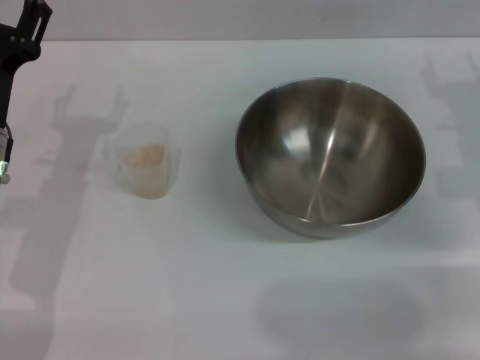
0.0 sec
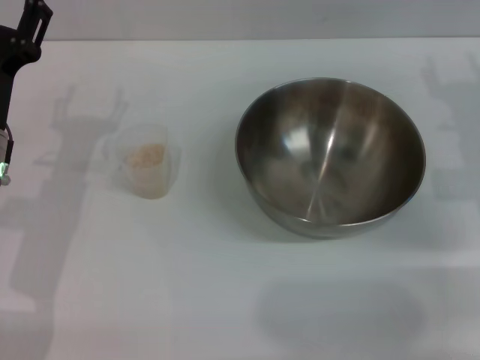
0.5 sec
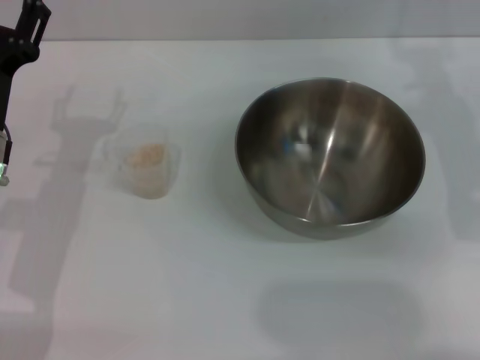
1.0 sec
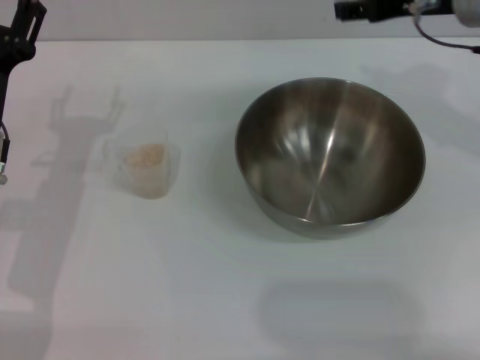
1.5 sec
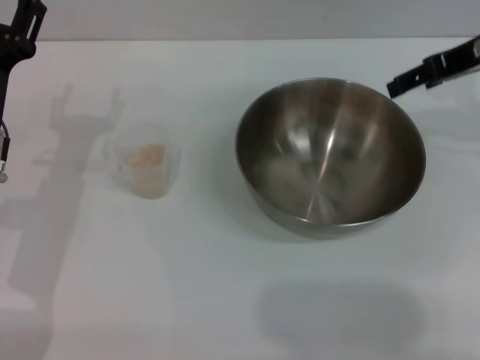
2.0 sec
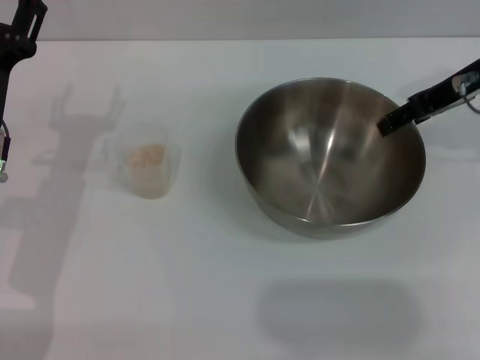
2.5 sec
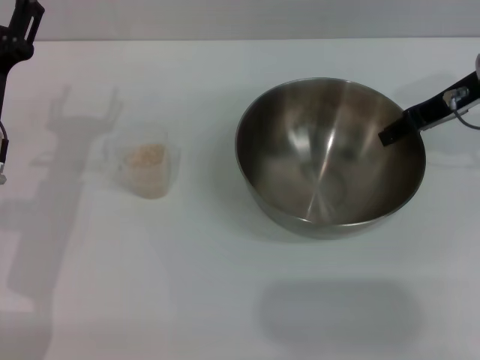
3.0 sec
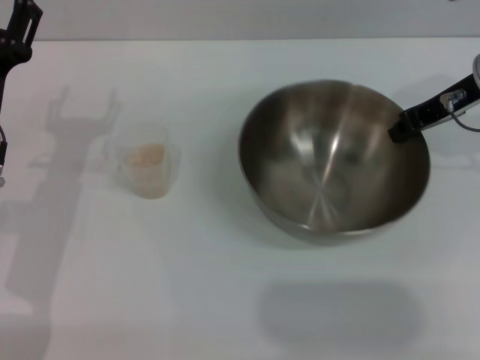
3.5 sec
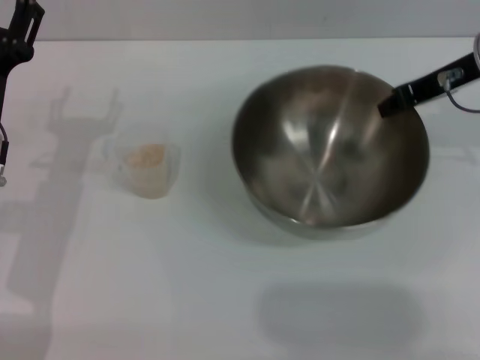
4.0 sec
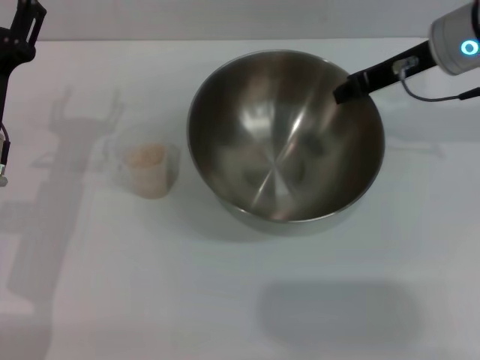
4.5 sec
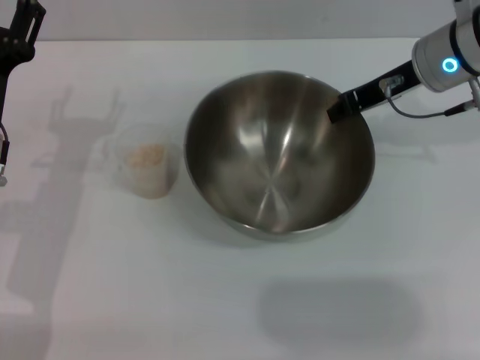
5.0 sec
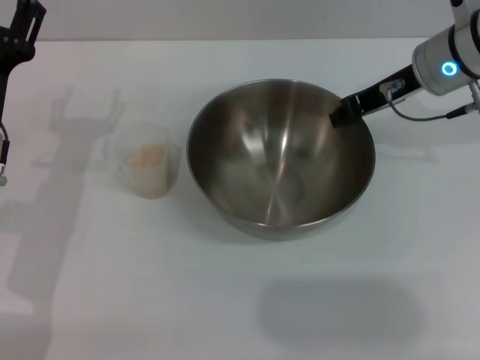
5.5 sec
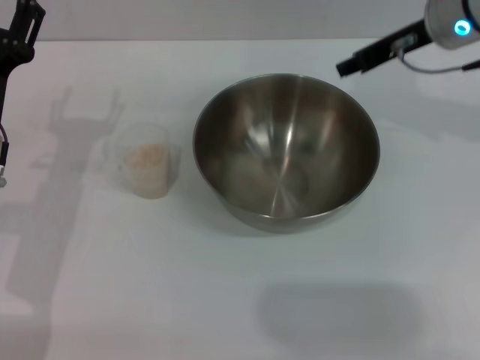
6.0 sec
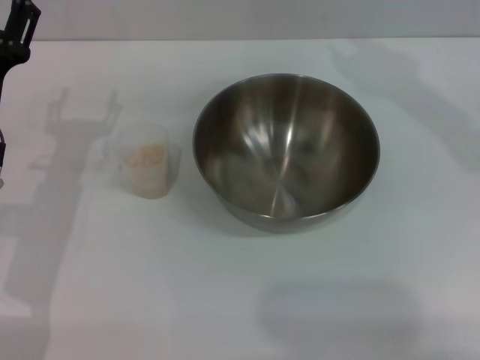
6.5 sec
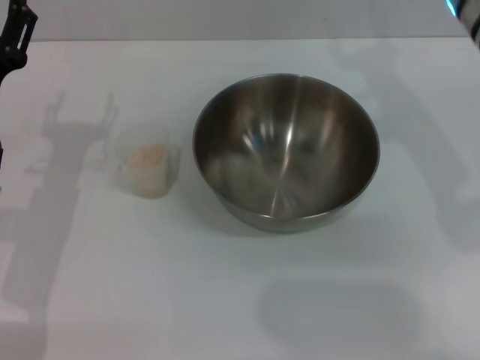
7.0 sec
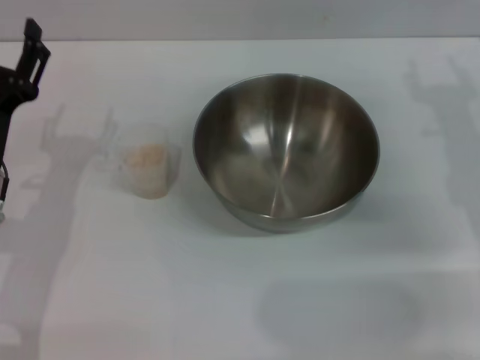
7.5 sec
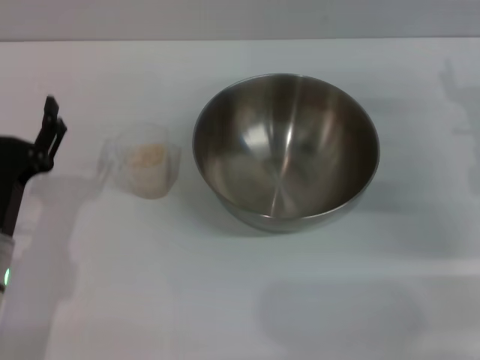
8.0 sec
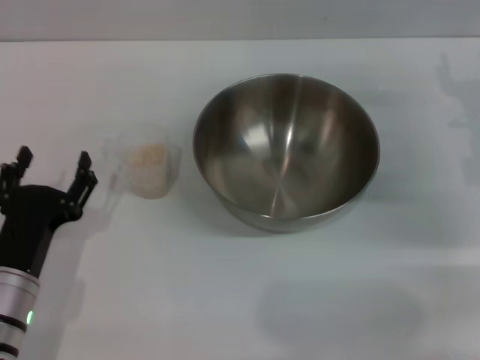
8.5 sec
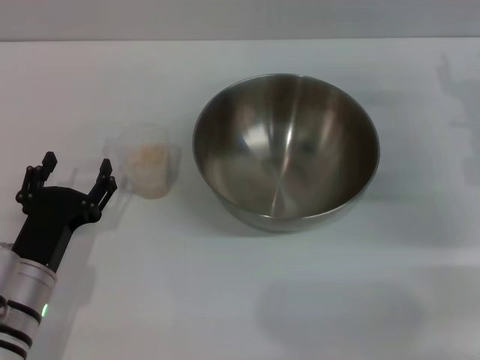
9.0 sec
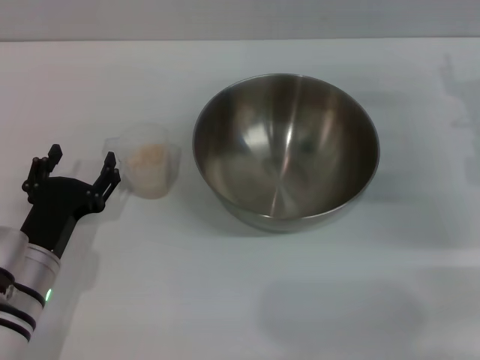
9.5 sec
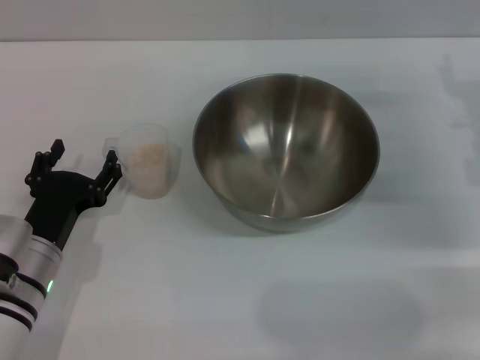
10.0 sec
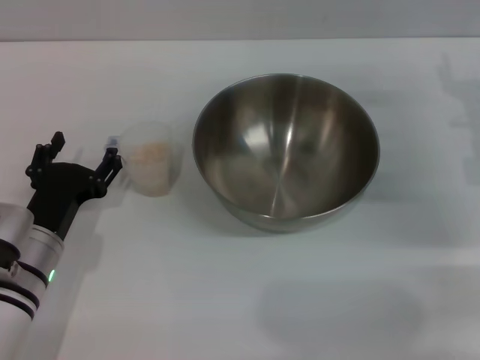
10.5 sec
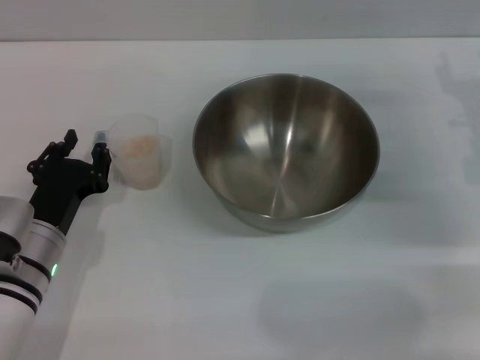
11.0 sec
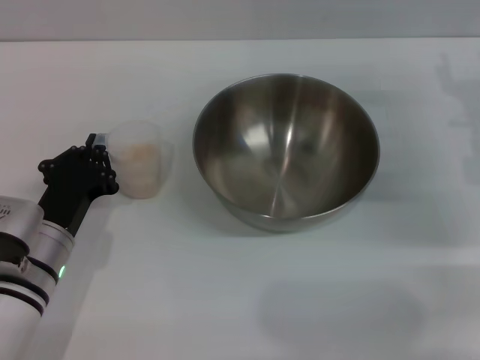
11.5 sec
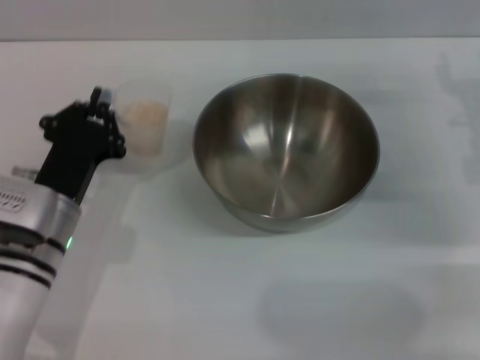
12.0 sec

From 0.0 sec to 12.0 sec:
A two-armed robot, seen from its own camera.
Task of the whole recording: Place the bowl in the middle of the table with one hand and pour the rice from the grain cup into it with the other hand.
Step, from 0.0 sec to 3.5 sec: Pick up the bowl with the right gripper.
Step, from 4.0 sec to 6.0 sec: Place the bowl in the center of view with the right gripper.
Step, from 6.5 sec to 11.5 sec: Pick up the cup with rice in it with the left gripper.
From 0.0 sec to 2.0 sec: The right gripper goes approximately 15 cm upward and forward.
From 2.0 sec to 4.0 sec: The right gripper closes up.
From 4.0 sec to 6.0 sec: The right gripper ends up roughly 5 cm from where it was.
From 6.0 sec to 8.0 sec: The left gripper shifts roughly 10 cm backward and downward, while the right gripper goes some 15 cm downward, backward and to the right, and opens its fingers.
From 8.0 sec to 10.0 sec: The grippers make only small movements.
From 10.0 sec to 12.0 sec: The left gripper moves some 5 cm, and closes.

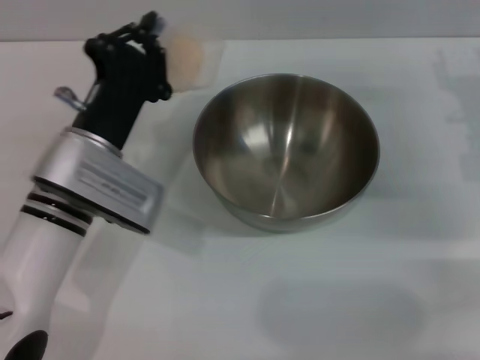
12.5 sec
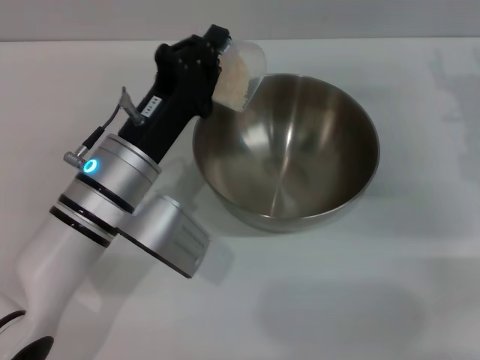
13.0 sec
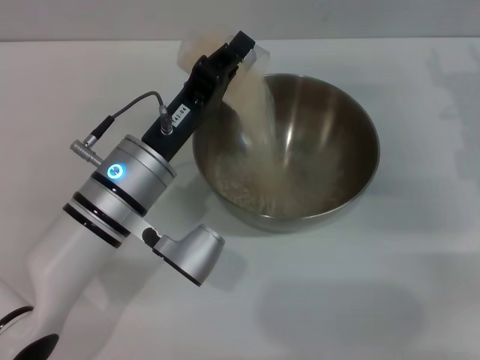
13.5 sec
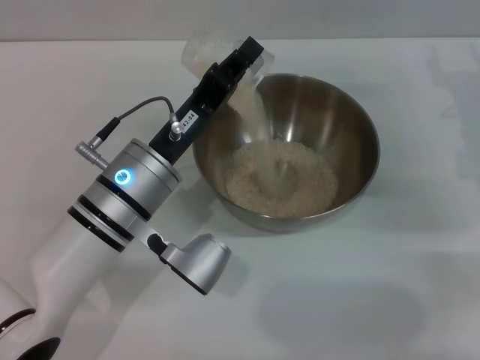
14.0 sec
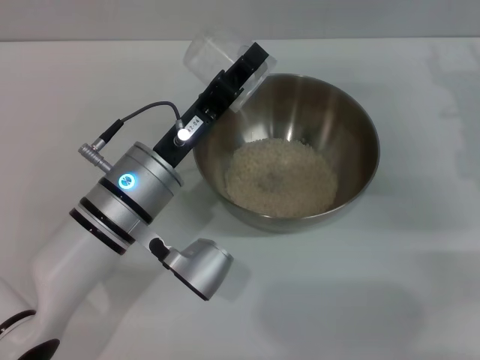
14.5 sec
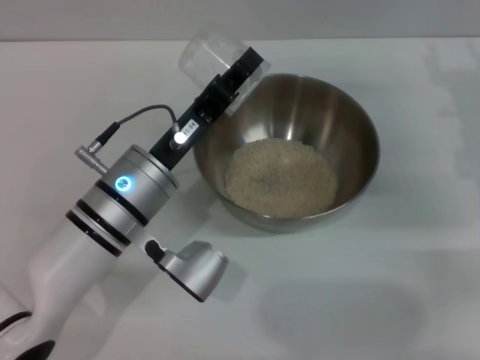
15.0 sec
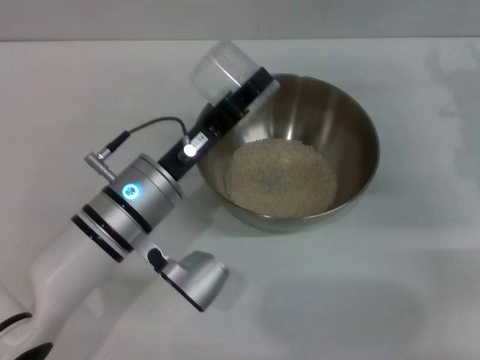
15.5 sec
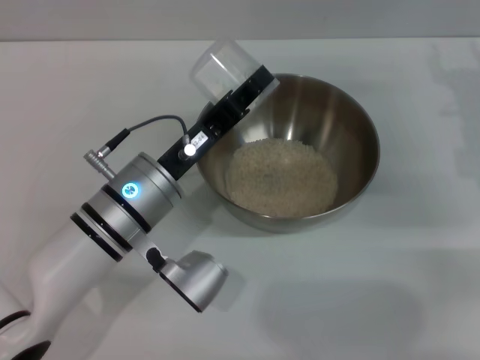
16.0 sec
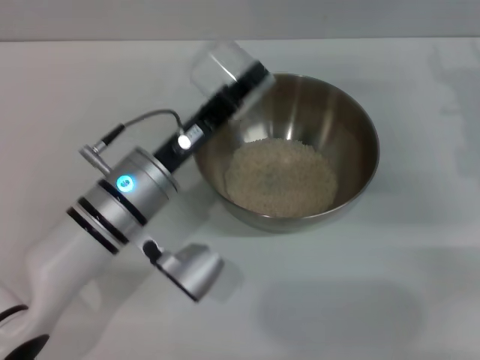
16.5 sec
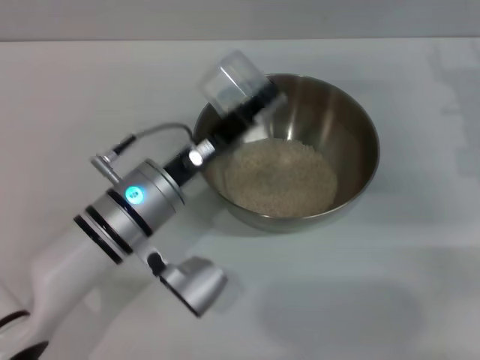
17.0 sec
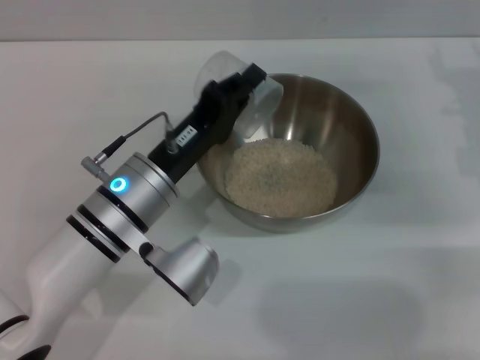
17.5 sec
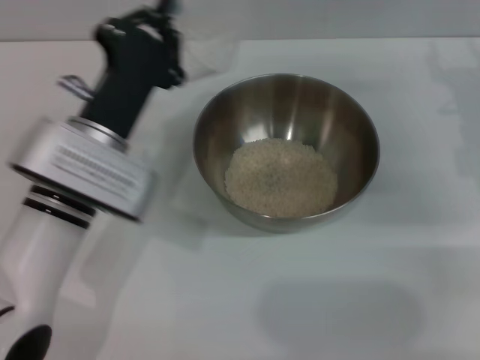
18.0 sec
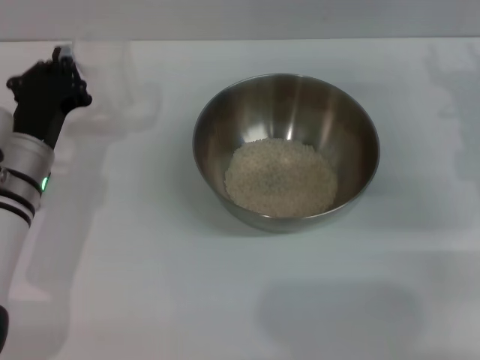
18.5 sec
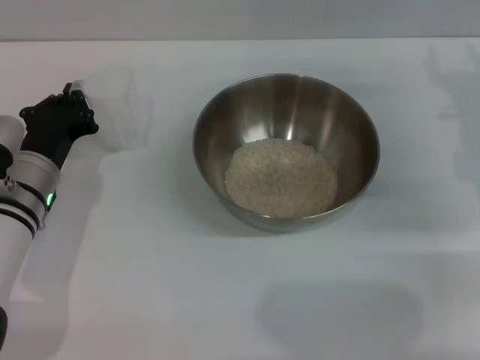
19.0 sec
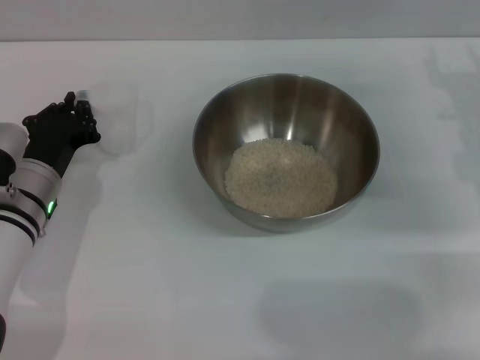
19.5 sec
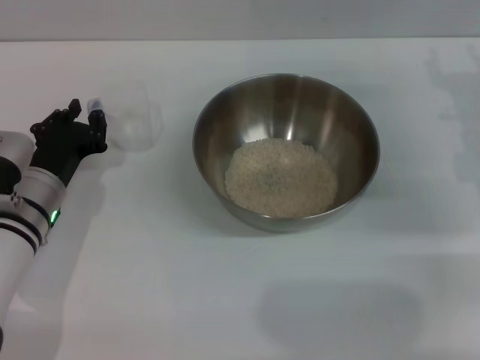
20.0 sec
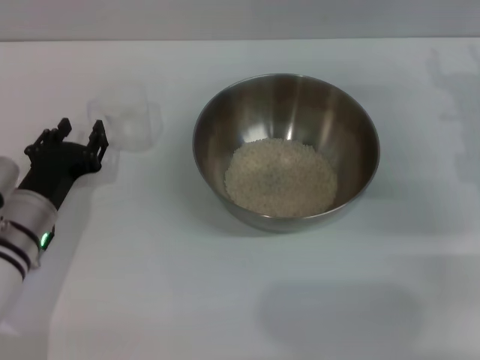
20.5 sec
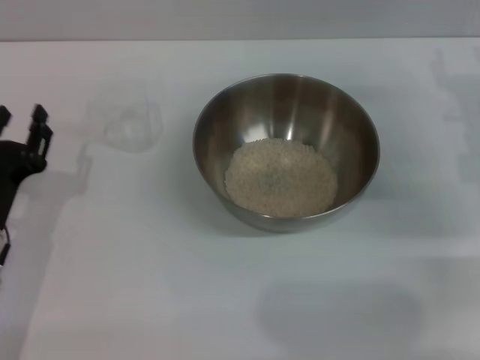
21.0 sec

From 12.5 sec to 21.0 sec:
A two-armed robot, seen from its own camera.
Task of the whole recording: Place the bowl in the middle of the table with one hand and pour the rice from the grain cup into it with the other hand.
Step, from 12.5 sec to 15.0 sec: Pour the rice from the cup into the bowl with the left gripper.
Step, from 15.5 sec to 20.0 sec: Place the cup on the table with the left gripper.
From 14.5 sec to 16.5 sec: The grippers make only small movements.
From 16.5 sec to 19.0 sec: The left gripper heads to the left, covering about 10 cm.
From 19.0 sec to 21.0 sec: The left gripper heads backward, covering about 10 cm, and opens.

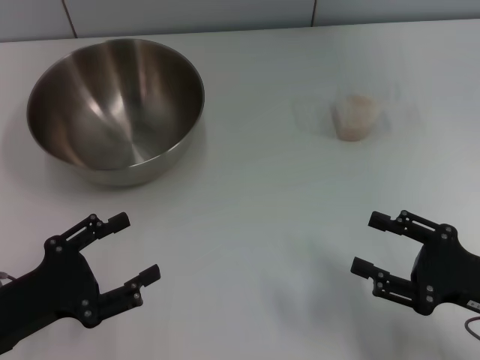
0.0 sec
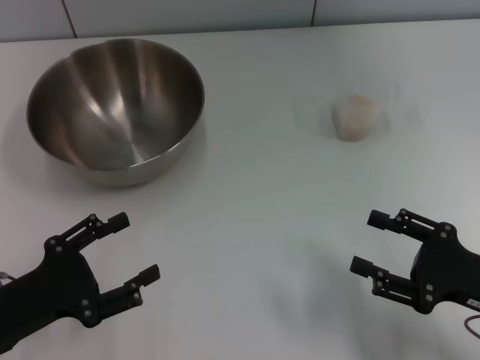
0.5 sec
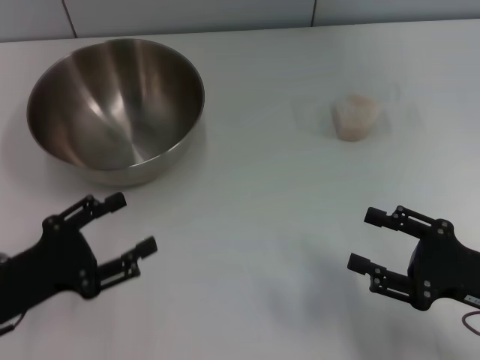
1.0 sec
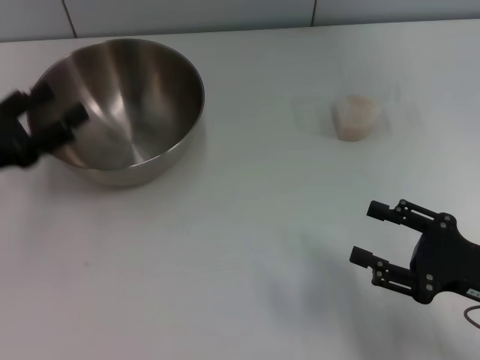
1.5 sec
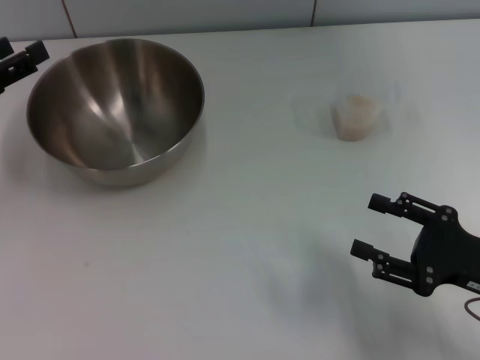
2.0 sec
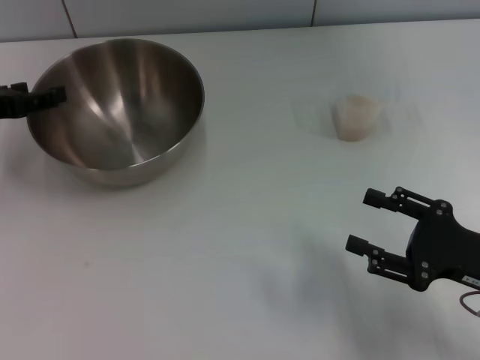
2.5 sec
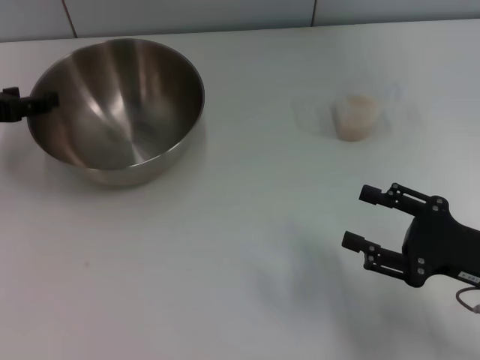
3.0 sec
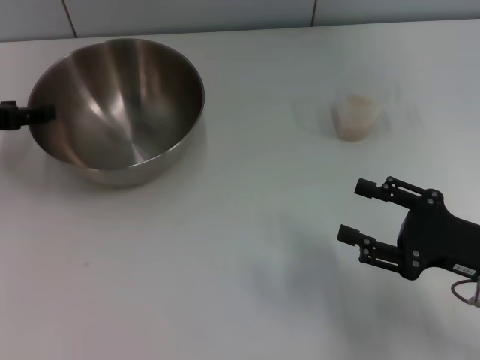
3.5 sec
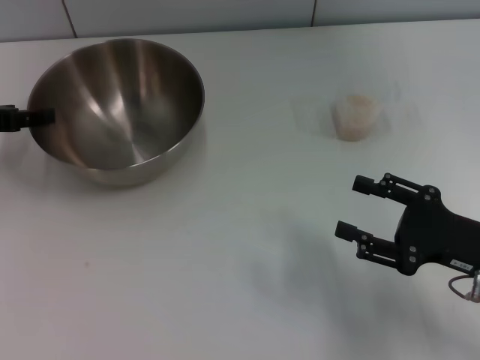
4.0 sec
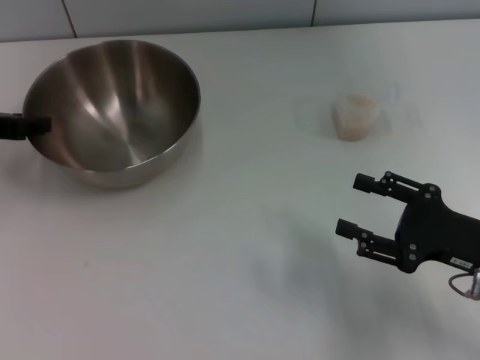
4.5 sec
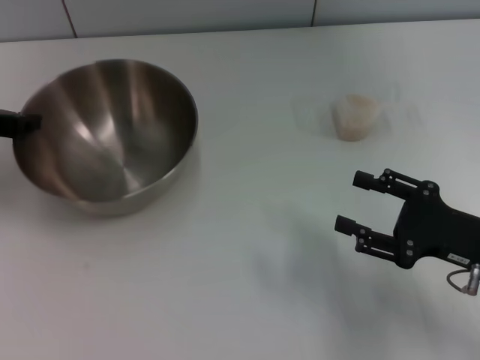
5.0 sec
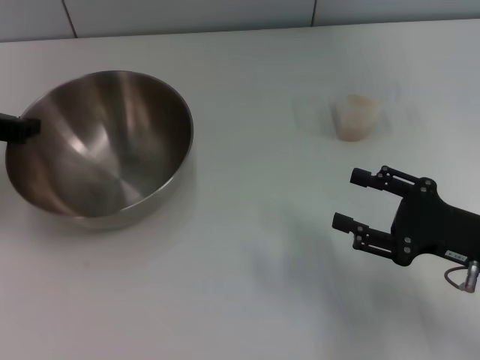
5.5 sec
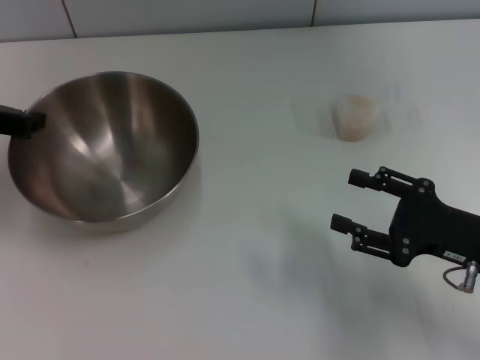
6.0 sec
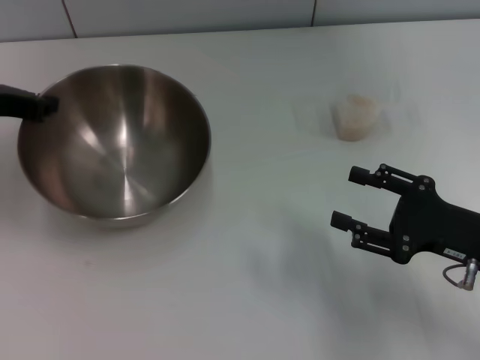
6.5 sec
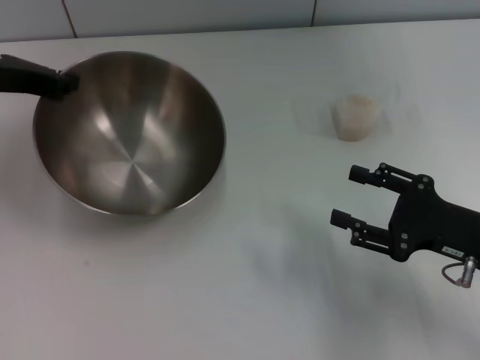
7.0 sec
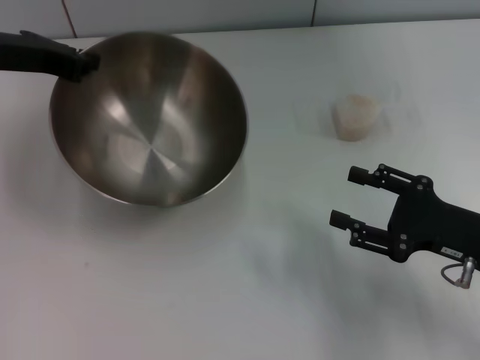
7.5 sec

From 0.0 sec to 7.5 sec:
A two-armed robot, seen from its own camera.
Task of the whole recording: Place the bowl in the middle of the table with one hand and pour the rice from the grain cup into it with the other hand.
Step, from 0.0 sec to 7.0 sec: Pick up the bowl with the left gripper.
From 0.0 sec to 2.0 sec: The left gripper heads forward and upward, covering approximately 15 cm.
From 4.0 sec to 5.5 sec: The left gripper closes.
From 5.5 sec to 7.5 sec: The left gripper moves to the right and upward, approximately 10 cm.
